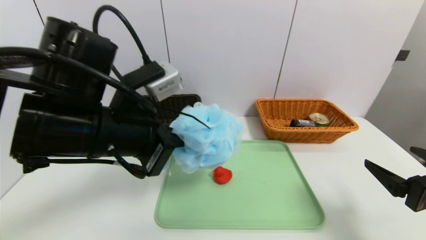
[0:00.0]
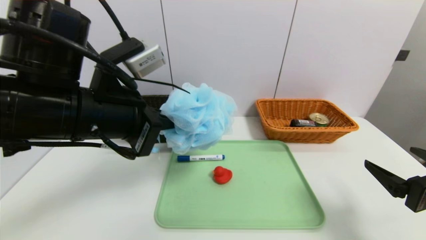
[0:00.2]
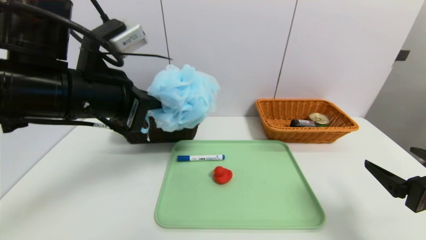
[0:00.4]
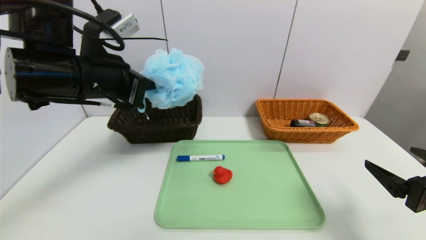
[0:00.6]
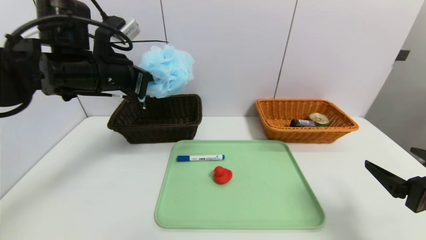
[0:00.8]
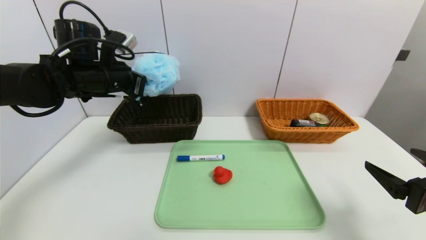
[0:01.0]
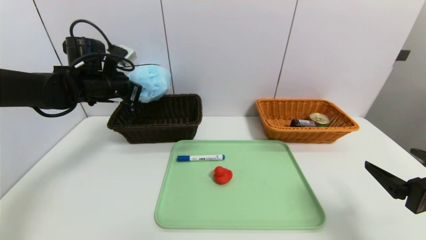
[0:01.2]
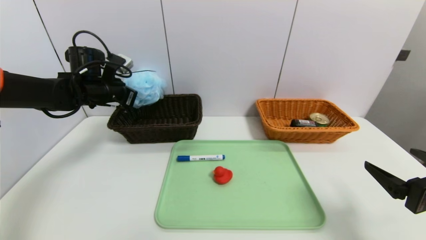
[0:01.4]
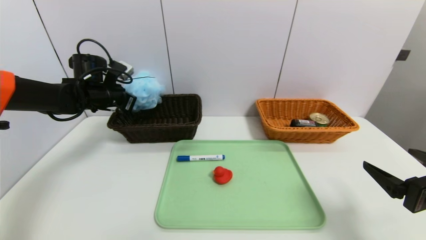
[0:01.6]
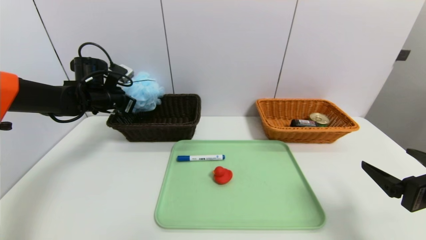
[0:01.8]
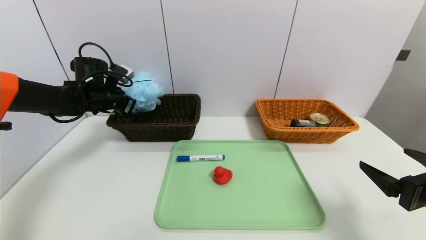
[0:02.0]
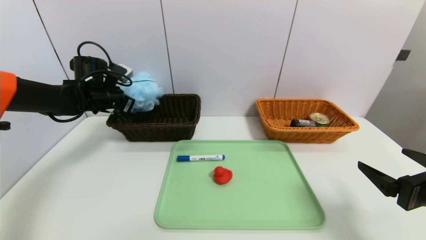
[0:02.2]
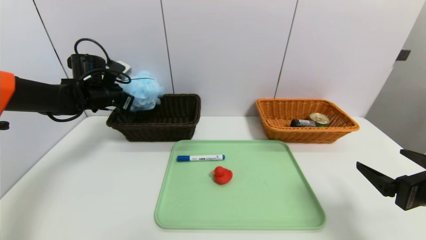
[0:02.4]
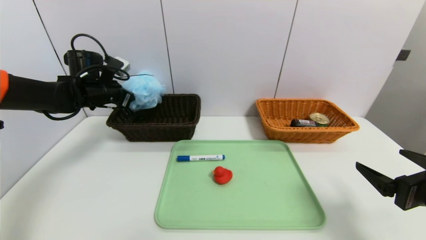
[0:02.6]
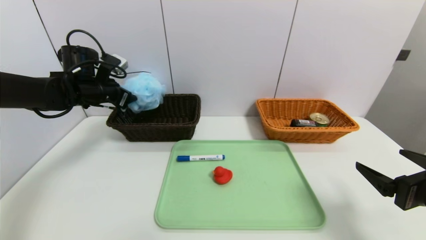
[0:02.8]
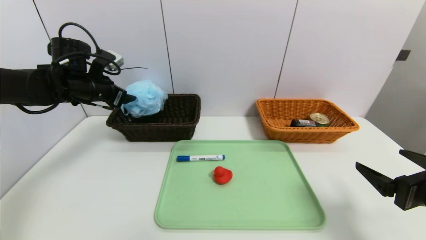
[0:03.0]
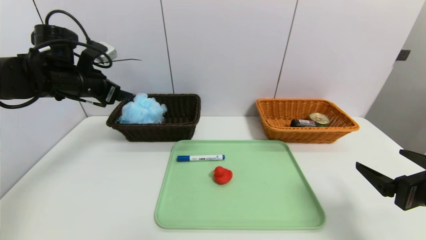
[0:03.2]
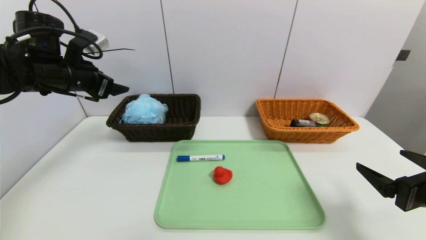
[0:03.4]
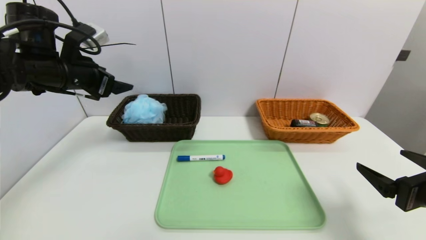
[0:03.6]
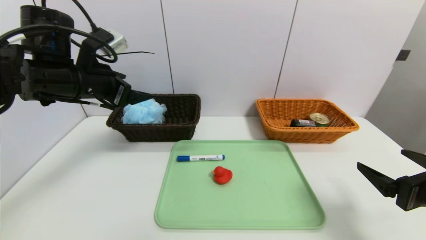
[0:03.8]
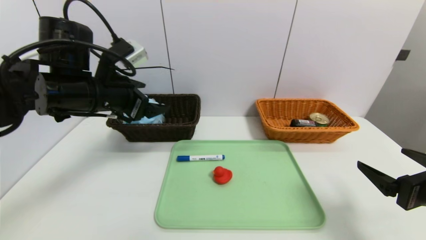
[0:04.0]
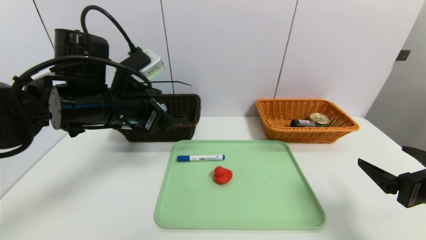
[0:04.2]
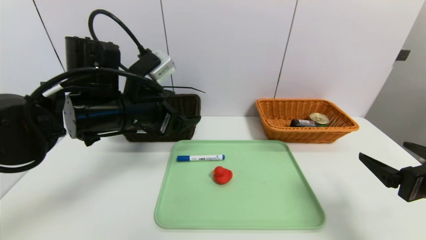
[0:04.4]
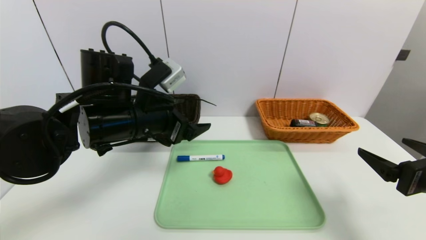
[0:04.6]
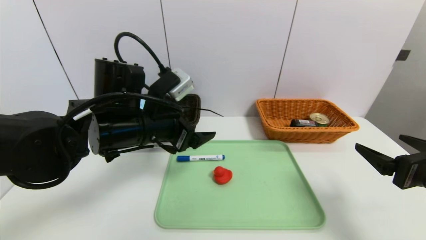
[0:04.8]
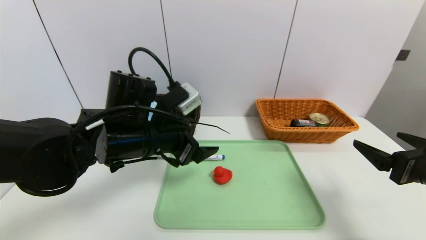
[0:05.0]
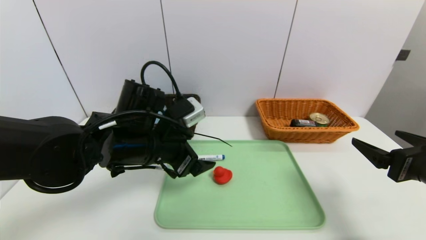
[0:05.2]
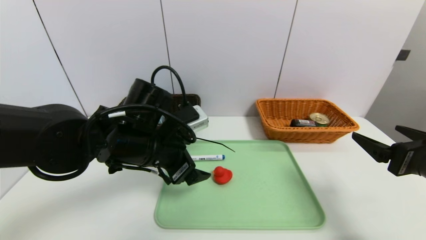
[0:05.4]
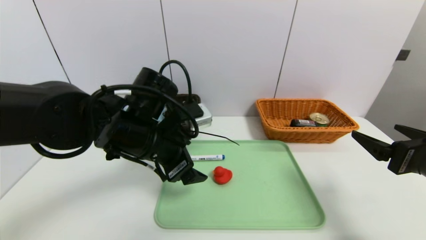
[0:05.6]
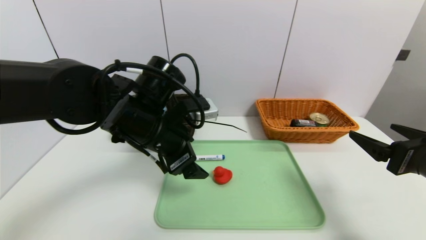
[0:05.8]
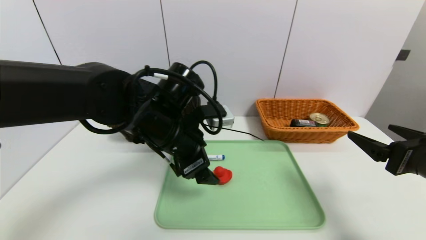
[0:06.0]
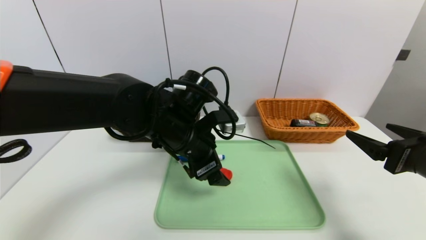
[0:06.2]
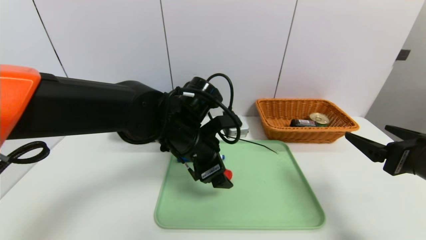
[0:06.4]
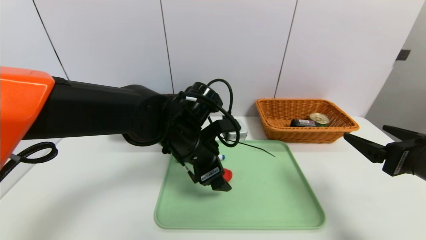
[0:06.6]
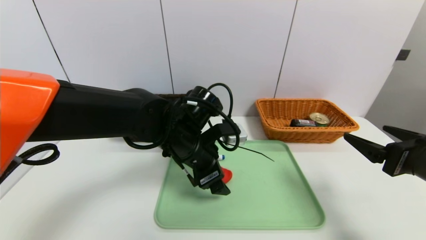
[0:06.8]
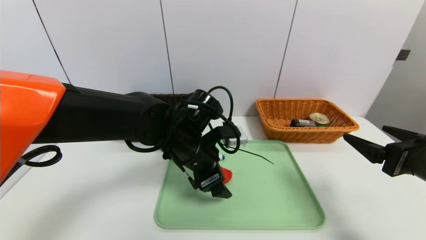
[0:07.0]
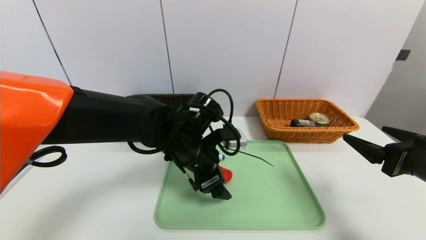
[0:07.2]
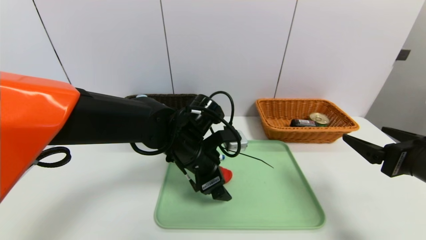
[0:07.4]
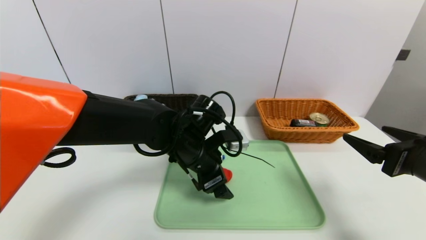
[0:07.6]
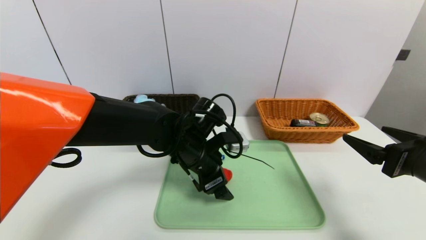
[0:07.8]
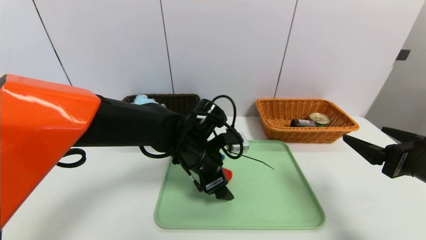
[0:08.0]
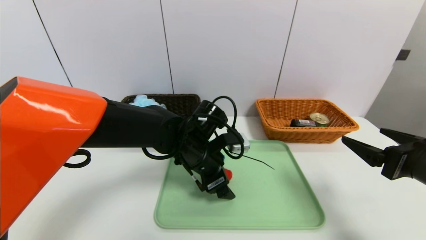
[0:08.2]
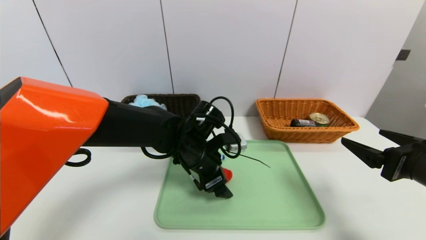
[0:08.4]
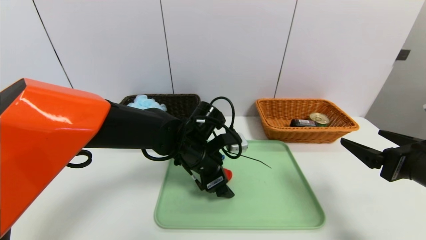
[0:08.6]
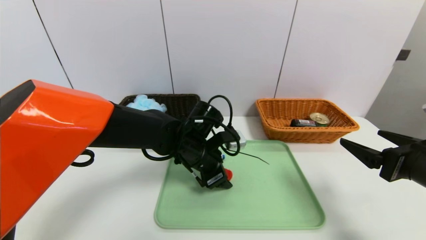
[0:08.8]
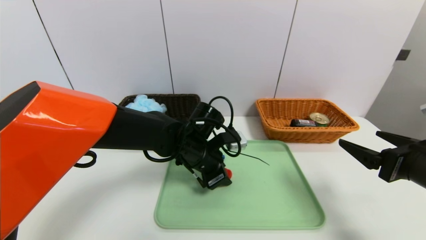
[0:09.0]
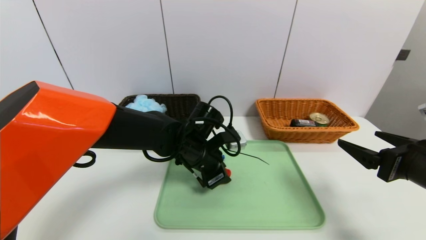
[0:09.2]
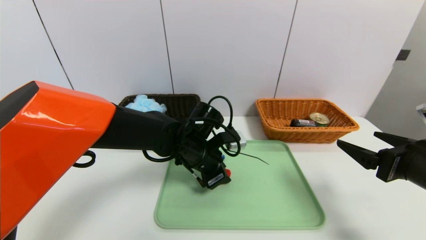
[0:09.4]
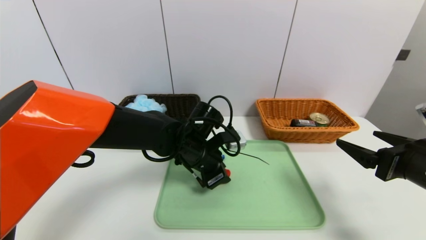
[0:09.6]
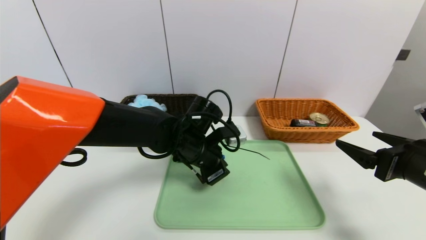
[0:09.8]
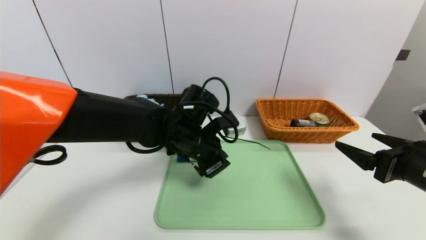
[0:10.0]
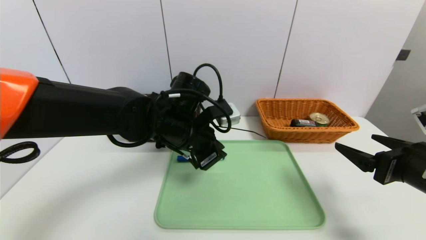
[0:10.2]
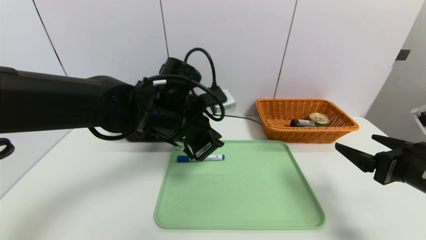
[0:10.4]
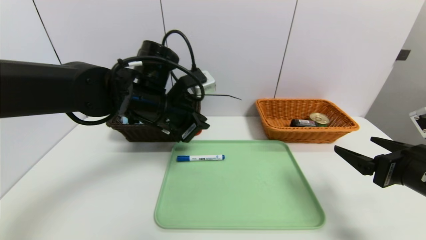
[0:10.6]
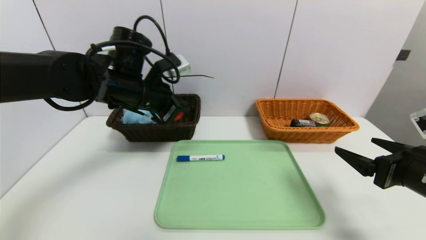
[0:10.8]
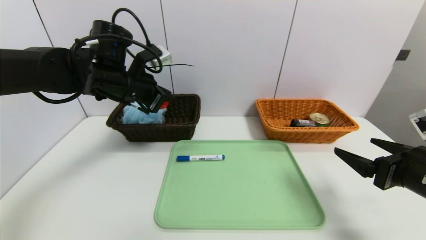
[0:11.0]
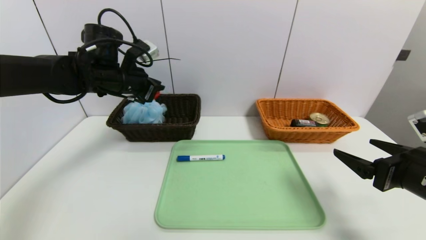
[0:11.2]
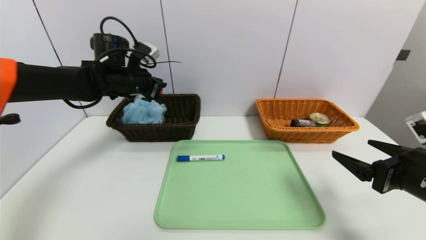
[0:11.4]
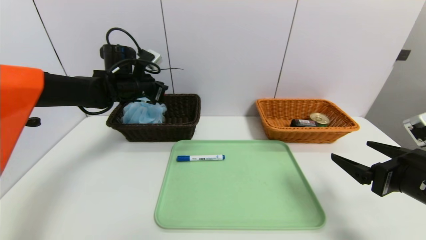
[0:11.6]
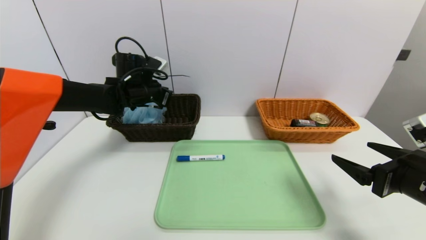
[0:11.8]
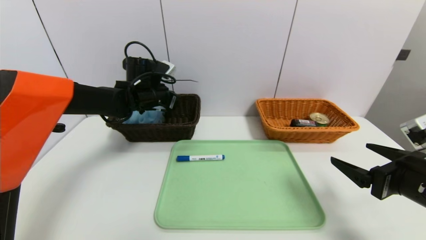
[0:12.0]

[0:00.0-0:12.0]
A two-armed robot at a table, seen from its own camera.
Task of the whole recording: place the food in the right basket with the right gripper, and place the non food items in the left basket with the left gripper.
Step, 0:00.0 to 0:03.8: Grasp the bath ball and put it in the left basket.
0:00.0 to 0:01.6: The left gripper shifts about 25 cm forward and to the left.
0:01.6 to 0:03.0: The left gripper moves roughly 5 cm, and opens.
0:03.0 to 0:04.4: The left gripper shifts approximately 20 cm to the right and backward.
0:04.4 to 0:06.0: The left gripper goes some 5 cm to the right.
0:06.0 to 0:07.6: The left gripper goes roughly 5 cm downward.
0:07.6 to 0:09.0: The left gripper closes its fingers.
0:09.0 to 0:10.4: The left gripper goes about 10 cm upward.
0:10.4 to 0:12.0: The left gripper goes roughly 20 cm forward and to the left.

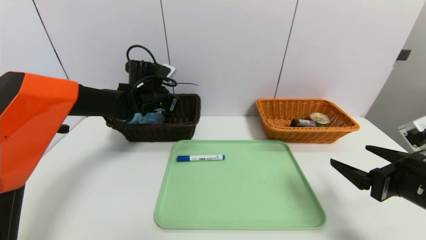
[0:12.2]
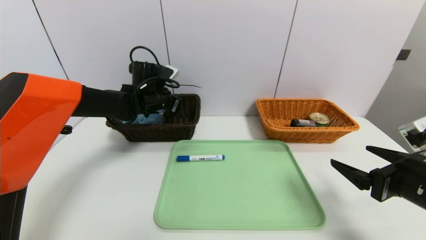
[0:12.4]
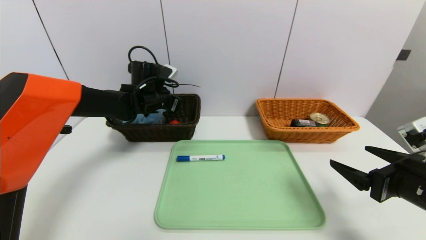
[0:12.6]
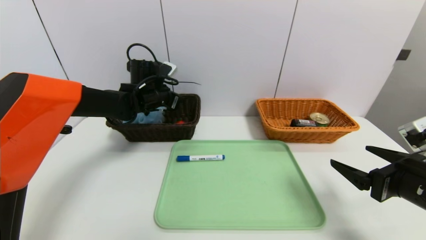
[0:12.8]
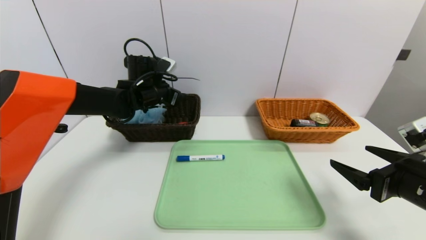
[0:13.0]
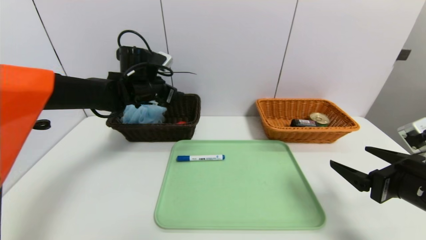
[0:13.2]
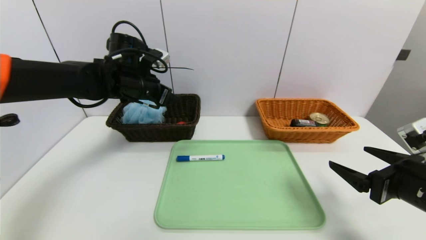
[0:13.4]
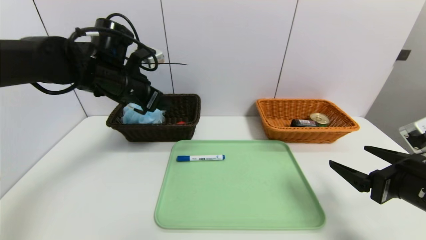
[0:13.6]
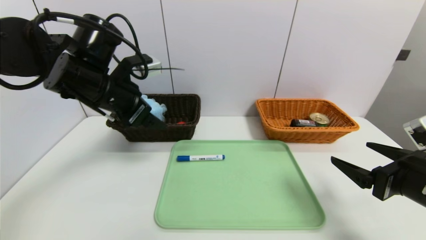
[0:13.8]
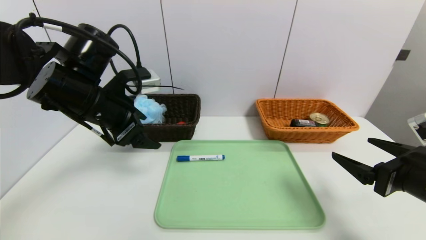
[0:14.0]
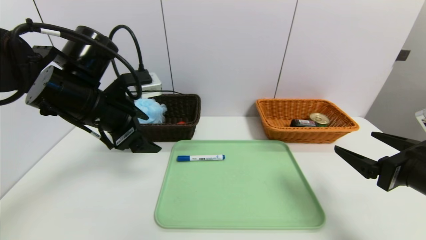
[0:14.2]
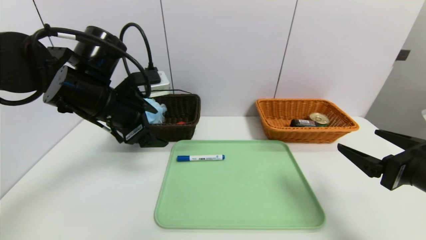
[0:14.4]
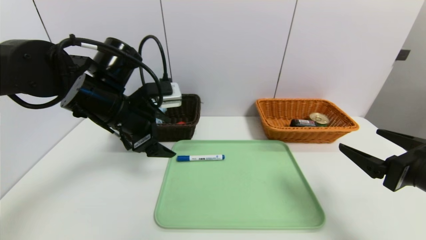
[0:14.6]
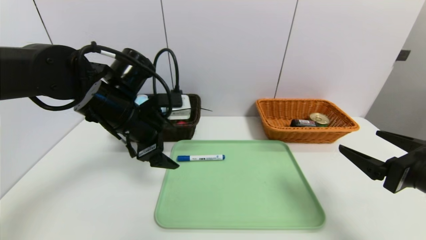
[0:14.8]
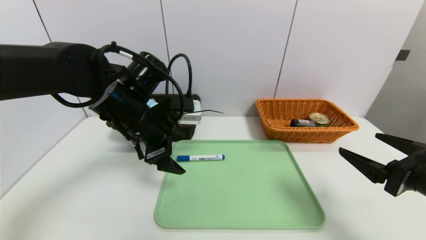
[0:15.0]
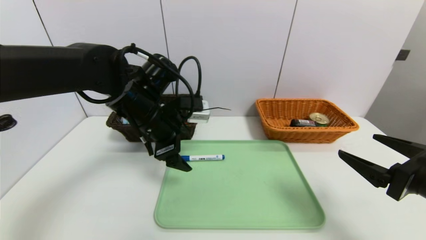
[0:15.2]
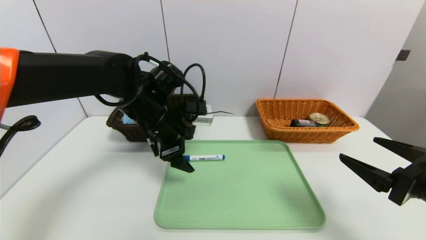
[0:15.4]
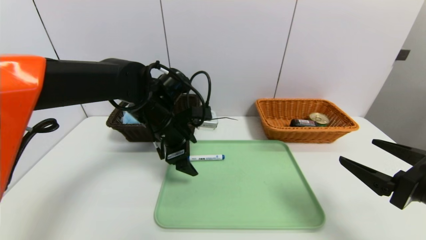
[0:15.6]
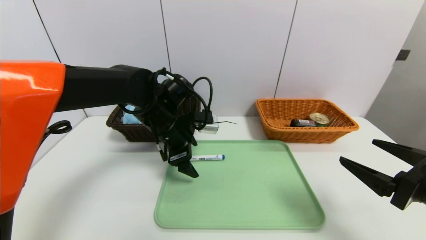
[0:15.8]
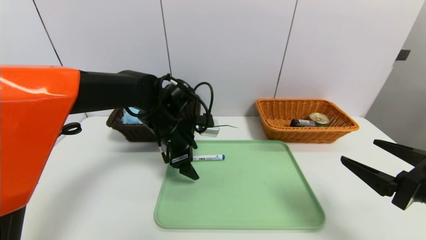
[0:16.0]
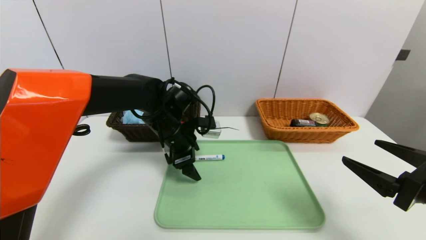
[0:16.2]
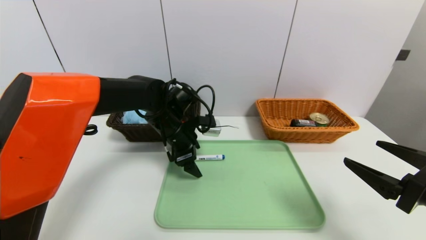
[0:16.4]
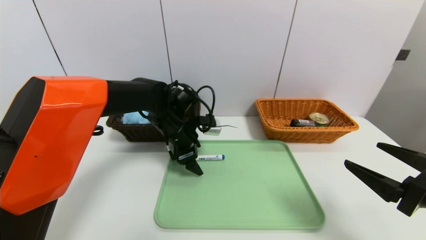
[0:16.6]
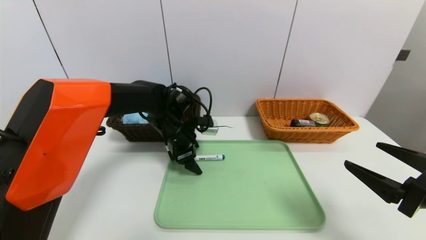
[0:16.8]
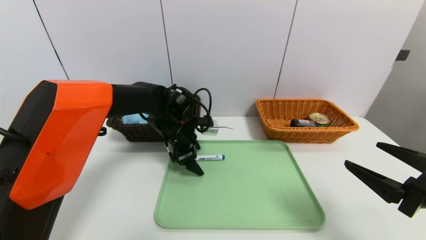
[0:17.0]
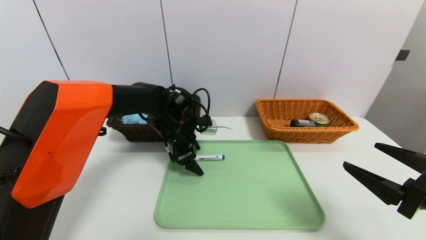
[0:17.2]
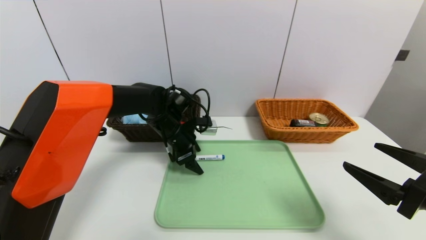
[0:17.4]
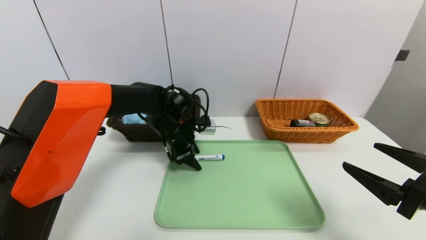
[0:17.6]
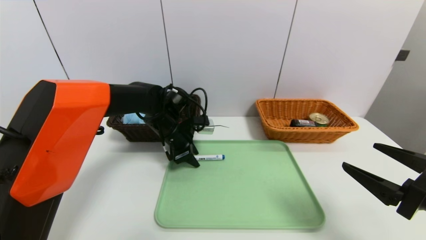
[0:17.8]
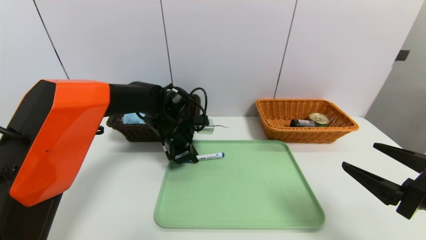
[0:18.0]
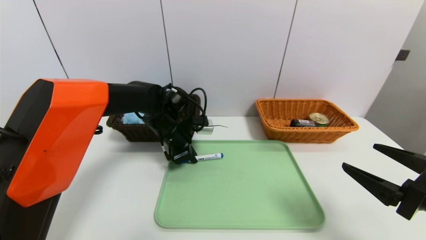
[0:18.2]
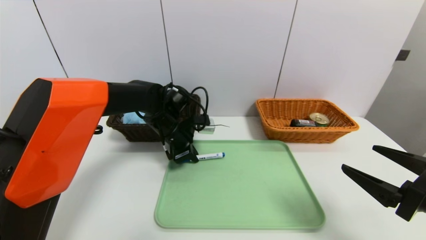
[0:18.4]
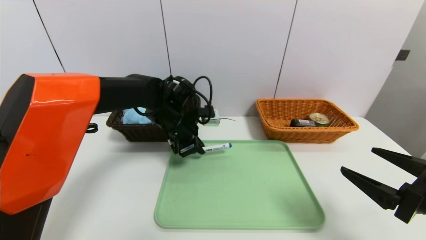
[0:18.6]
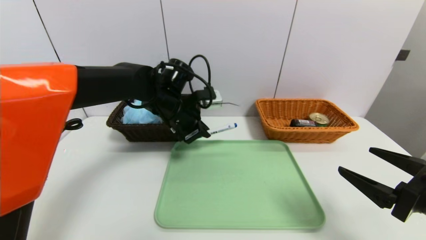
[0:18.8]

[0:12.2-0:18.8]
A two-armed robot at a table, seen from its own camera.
Task of the whole recording: place the food in the right basket with the right gripper, and place the non food items in the left basket with the left gripper.
0:12.2 to 0:13.8: The left gripper heads backward and upward, covering some 15 cm, and opens up.
0:13.8 to 0:15.4: The left gripper goes roughly 10 cm to the right and downward.
0:15.4 to 0:17.2: The left gripper moves downward and forward, some 10 cm.
0:17.2 to 0:18.8: The left gripper heads upward, covering approximately 5 cm, and closes.
